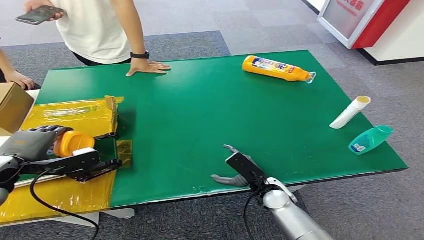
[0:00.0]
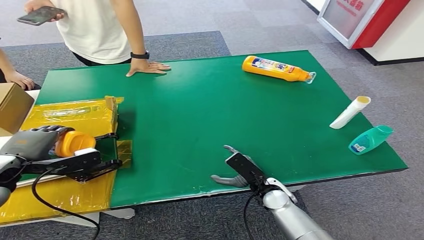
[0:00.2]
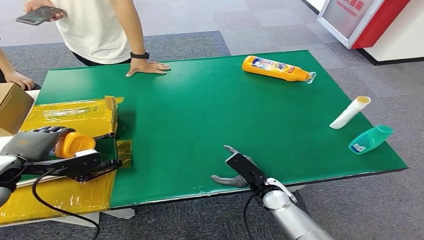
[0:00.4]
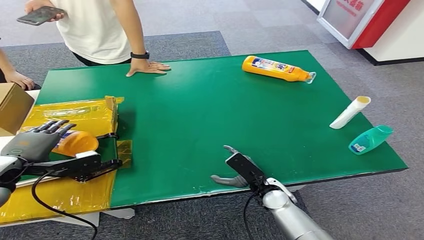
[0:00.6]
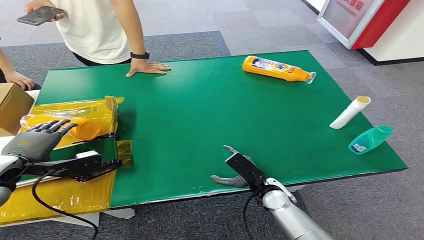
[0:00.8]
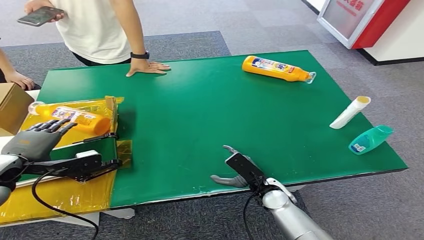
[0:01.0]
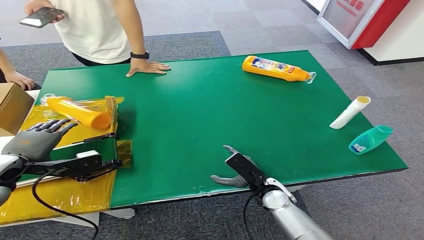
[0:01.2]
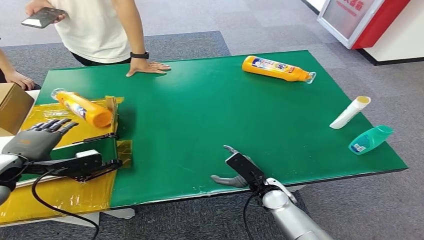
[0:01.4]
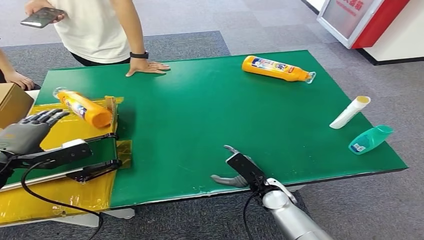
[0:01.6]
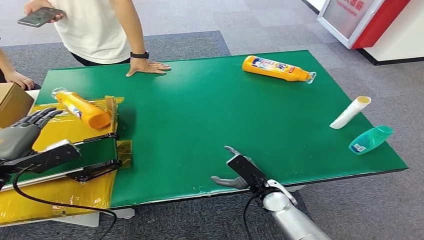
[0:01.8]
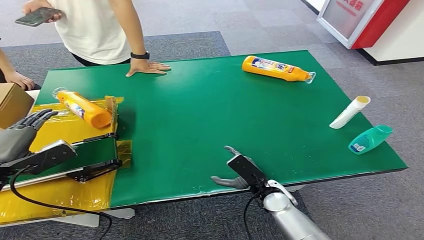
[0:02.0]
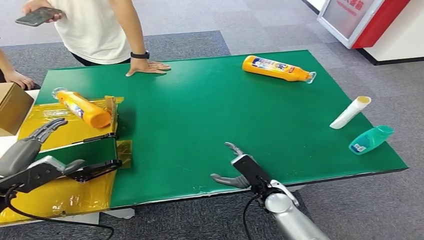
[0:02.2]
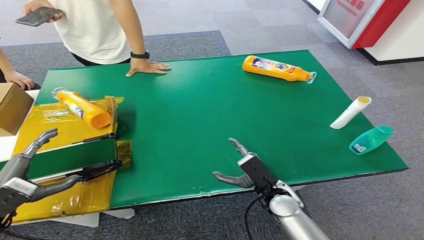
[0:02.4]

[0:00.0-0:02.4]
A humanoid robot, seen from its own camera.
Step, 0:00.0 to 0:02.4: Turn the bottle to the front side.
0:00.0 to 0:01.2: Neither hand changes place.
0:01.2 to 0:02.4: The left hand goes some 10 cm backward and downward.

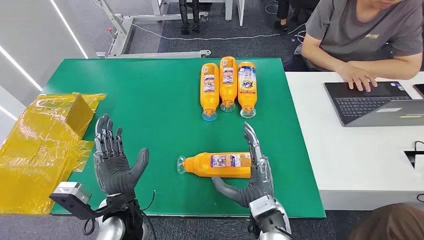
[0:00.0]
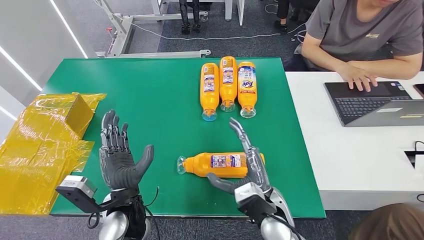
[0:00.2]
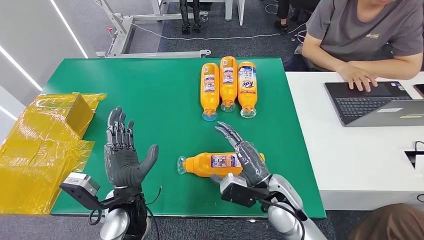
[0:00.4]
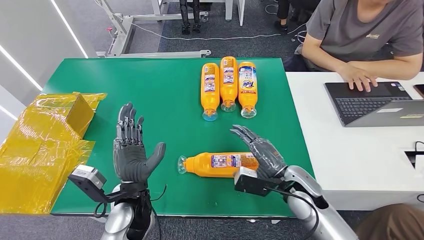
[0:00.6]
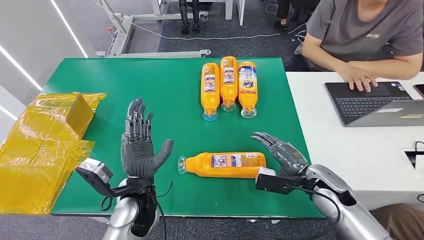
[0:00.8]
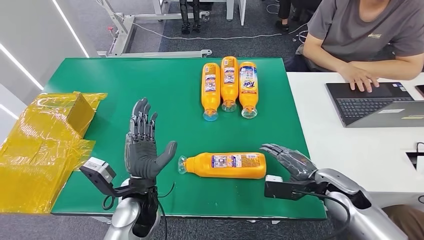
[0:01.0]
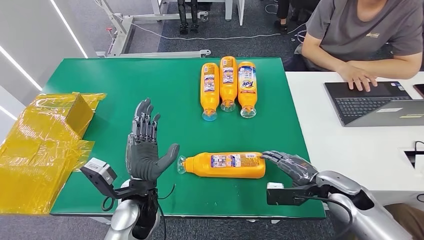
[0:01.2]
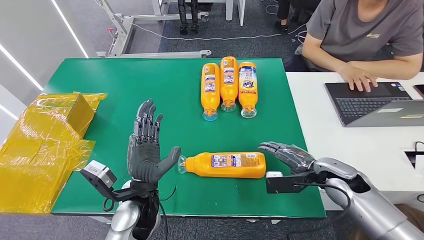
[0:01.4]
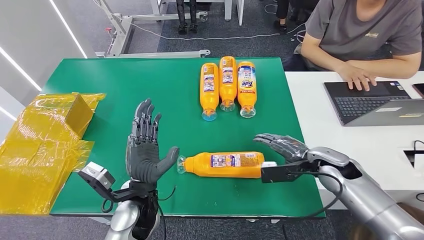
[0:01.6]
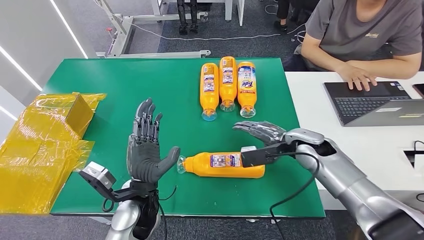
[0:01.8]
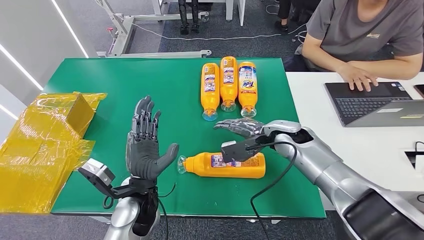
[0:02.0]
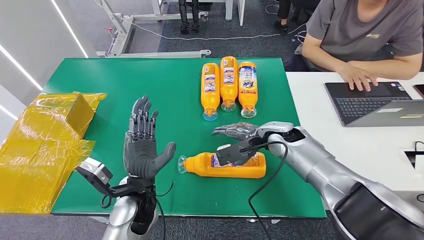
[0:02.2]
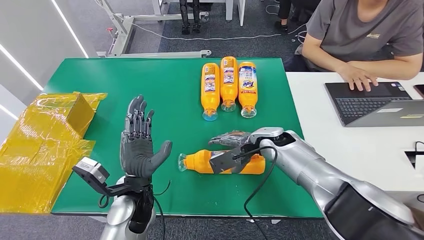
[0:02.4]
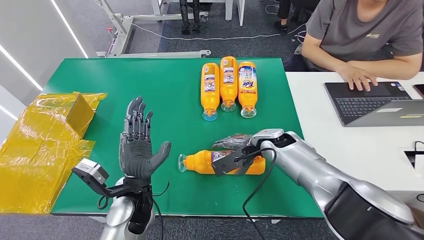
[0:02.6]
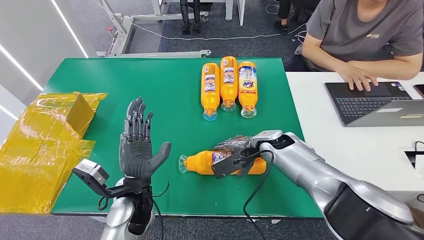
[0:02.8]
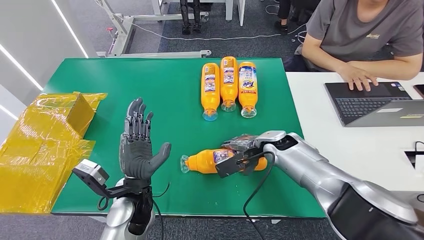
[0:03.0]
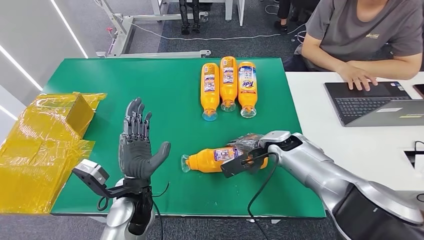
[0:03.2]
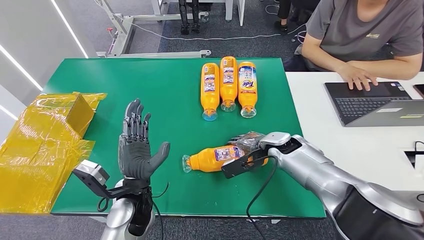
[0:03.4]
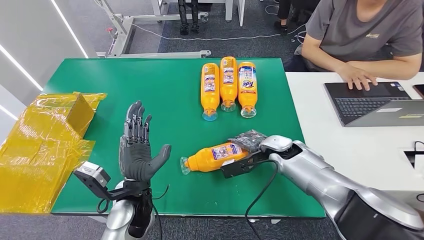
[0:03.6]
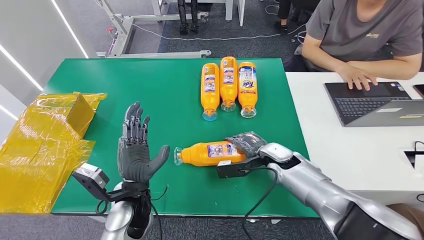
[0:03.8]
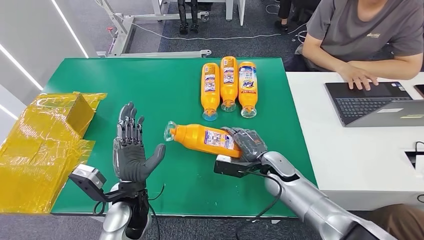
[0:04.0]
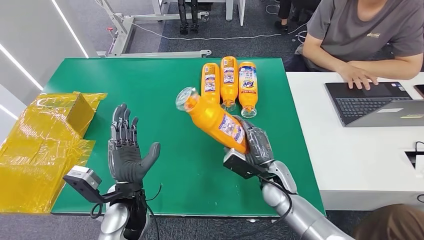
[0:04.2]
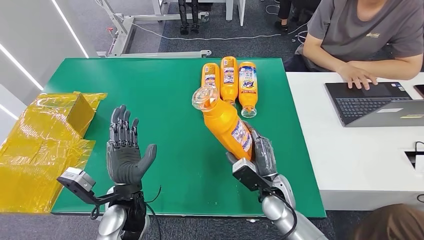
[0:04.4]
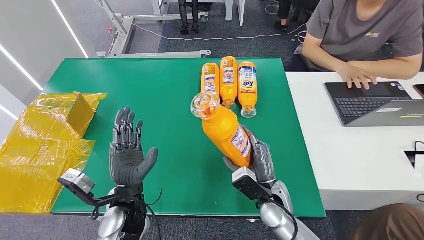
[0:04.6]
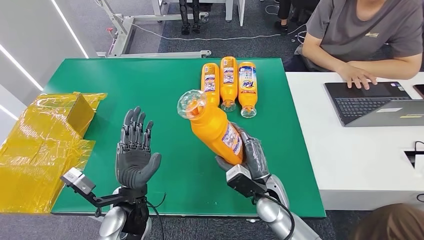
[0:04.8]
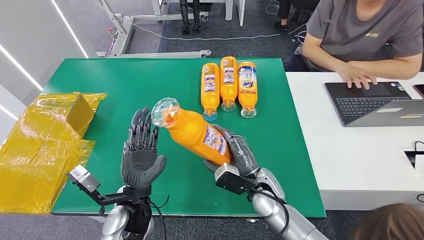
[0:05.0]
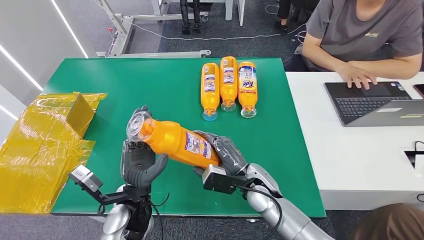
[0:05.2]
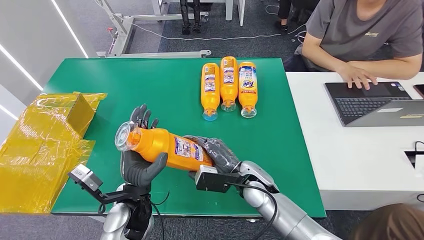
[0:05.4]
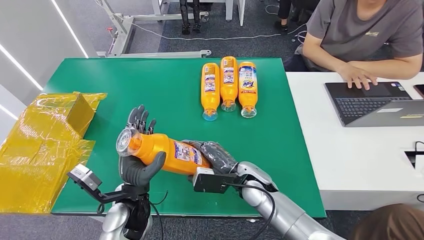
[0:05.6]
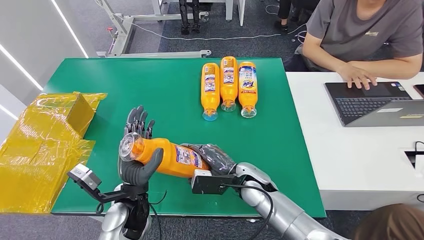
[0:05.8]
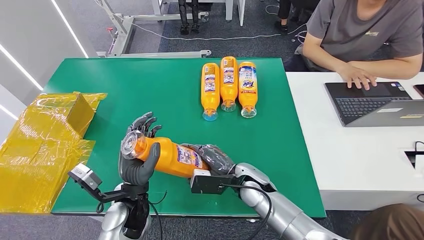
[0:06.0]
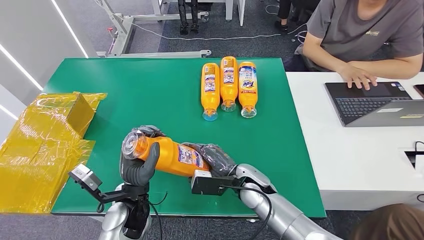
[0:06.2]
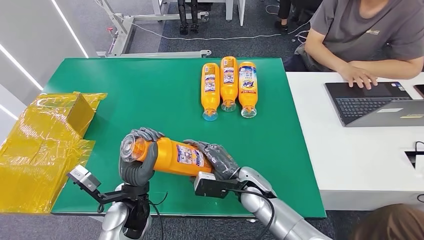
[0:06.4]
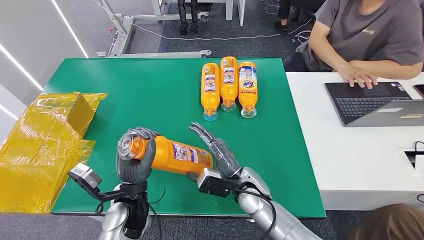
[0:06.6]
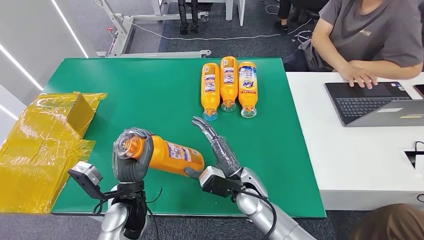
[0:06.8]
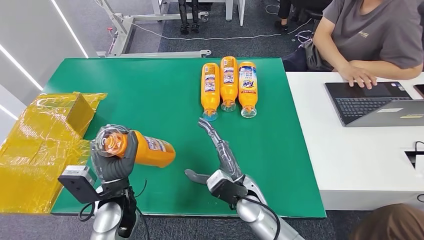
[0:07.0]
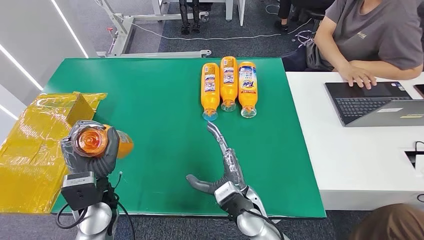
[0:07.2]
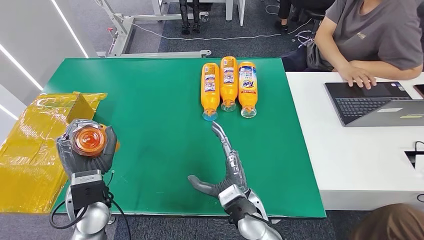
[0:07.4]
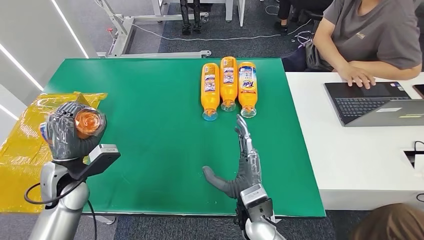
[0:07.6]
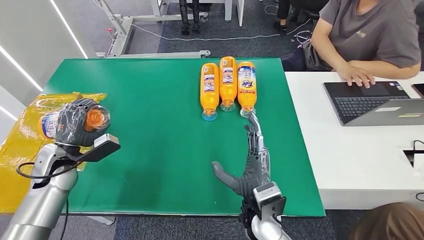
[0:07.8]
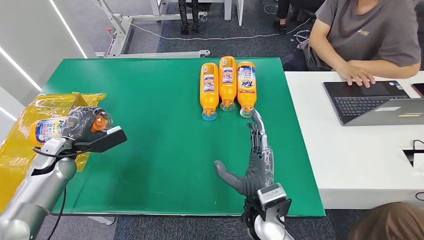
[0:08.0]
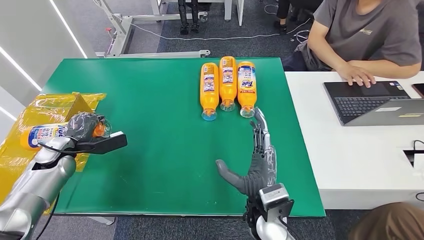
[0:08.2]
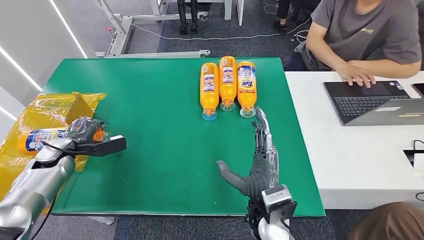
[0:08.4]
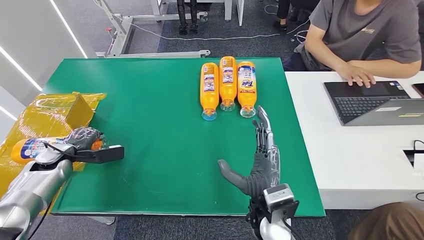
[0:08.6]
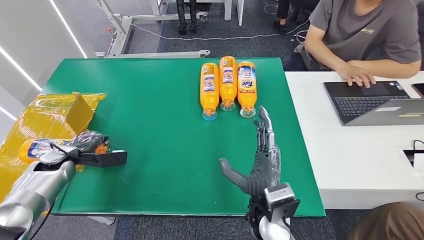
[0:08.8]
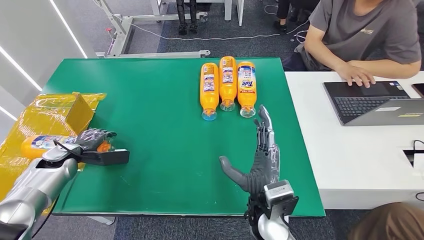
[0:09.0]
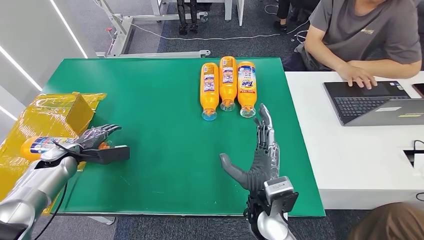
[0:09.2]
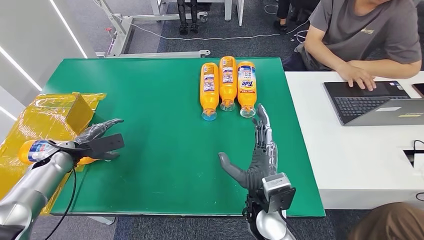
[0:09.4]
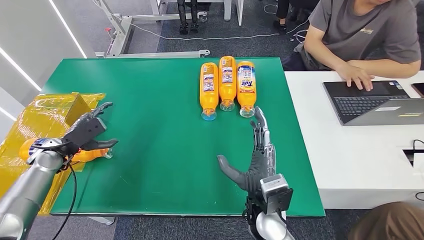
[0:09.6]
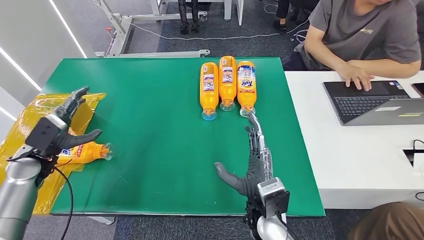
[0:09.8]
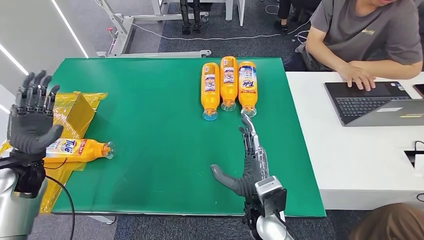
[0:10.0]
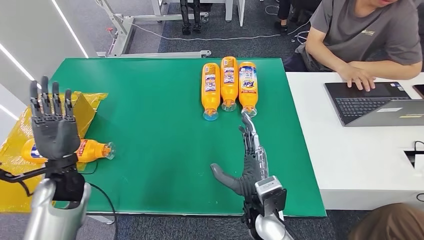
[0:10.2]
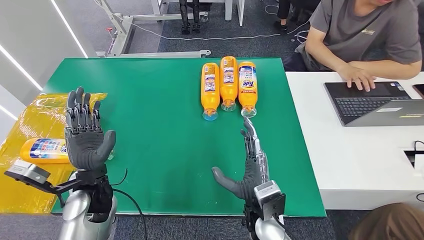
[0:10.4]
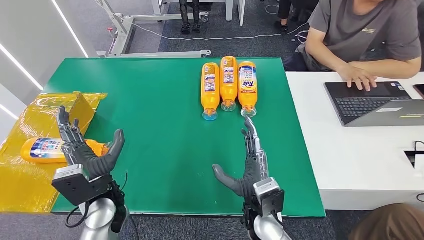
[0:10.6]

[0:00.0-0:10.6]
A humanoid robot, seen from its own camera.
Step, 0:00.0 to 0:04.8: Pick up the bottle from the table.
Step, 0:05.2 to 0:10.6: Turn the bottle to the front side.
0:01.6 to 0:03.0: The right hand moves to the left and forward, approximately 15 cm.
0:03.0 to 0:04.6: The right hand travels backward and downward by some 15 cm.
0:04.6 to 0:06.0: The right hand goes roughly 5 cm to the left.
0:07.6 to 0:09.0: The left hand goes about 15 cm to the left, forward and downward.
0:09.0 to 0:10.6: The left hand travels to the right and backward by roughly 25 cm.

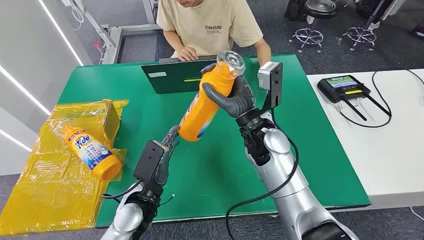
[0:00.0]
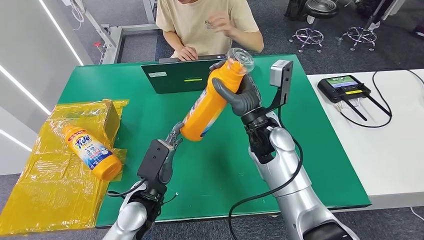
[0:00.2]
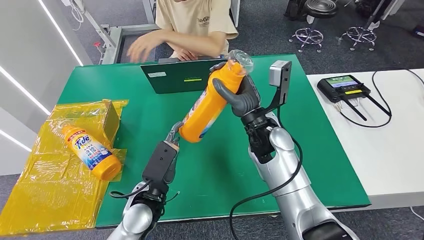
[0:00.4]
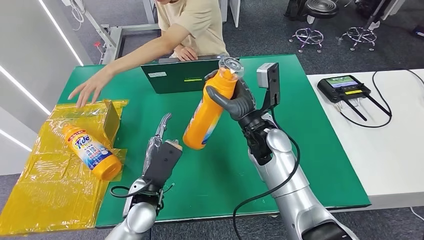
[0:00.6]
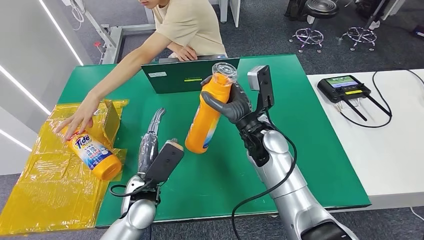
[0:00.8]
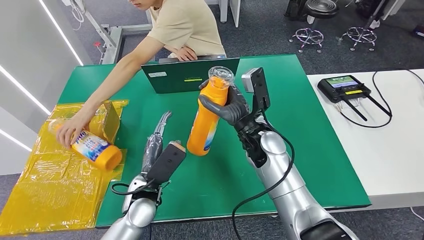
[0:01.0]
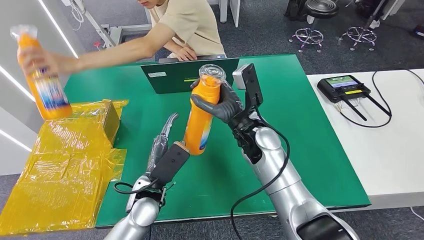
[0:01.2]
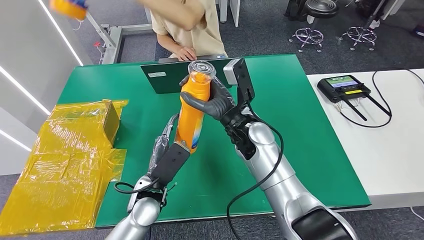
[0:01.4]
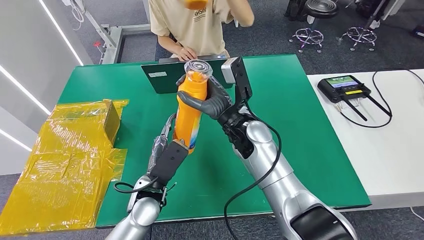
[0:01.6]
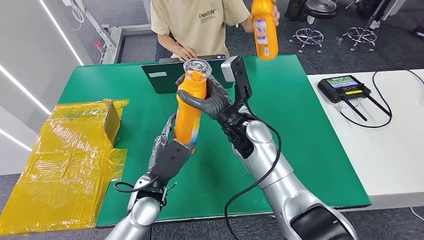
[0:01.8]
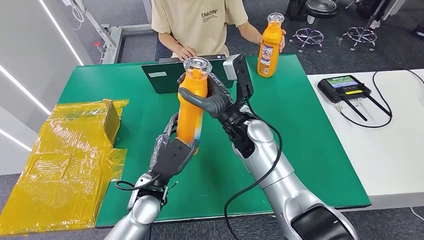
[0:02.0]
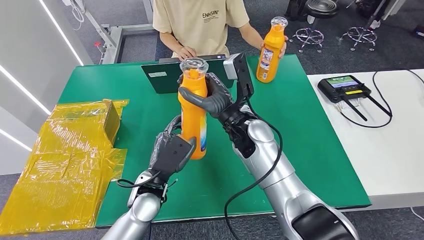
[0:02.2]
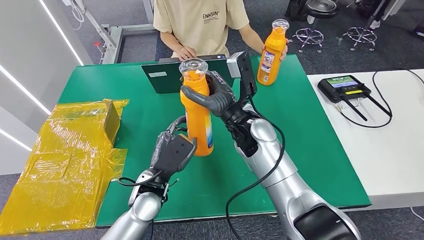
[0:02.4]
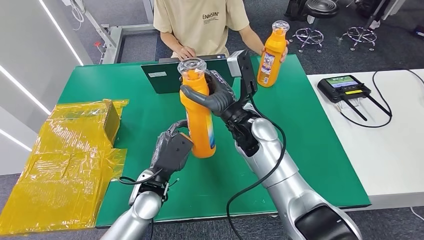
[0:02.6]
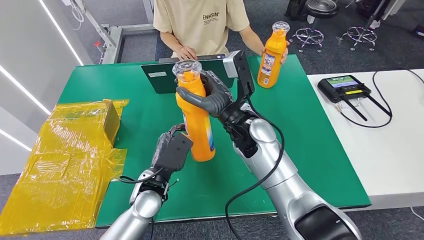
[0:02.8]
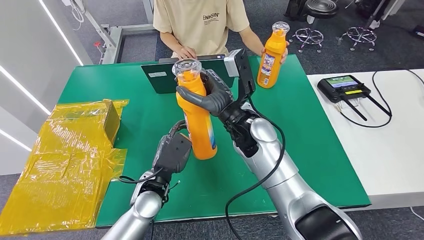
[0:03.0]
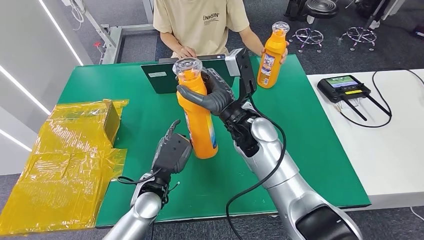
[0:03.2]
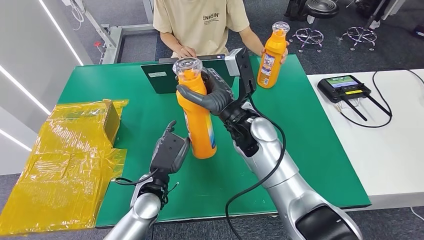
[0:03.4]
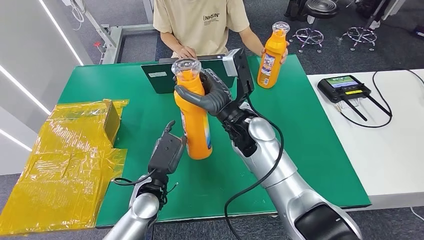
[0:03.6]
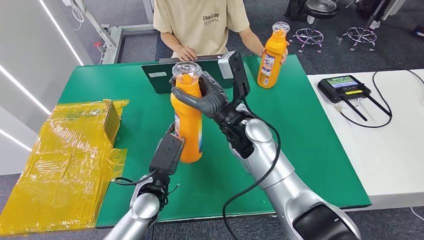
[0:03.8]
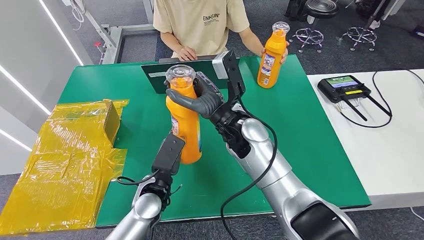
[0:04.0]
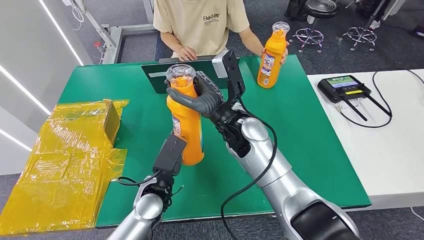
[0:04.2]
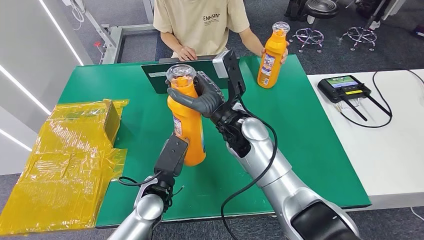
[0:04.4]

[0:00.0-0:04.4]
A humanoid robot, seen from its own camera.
Step, 0:00.0 to 0:04.2: Pick up the bottle from the table.
0:01.4 to 0:04.4: The hands stay close to where they were, moving slightly.
